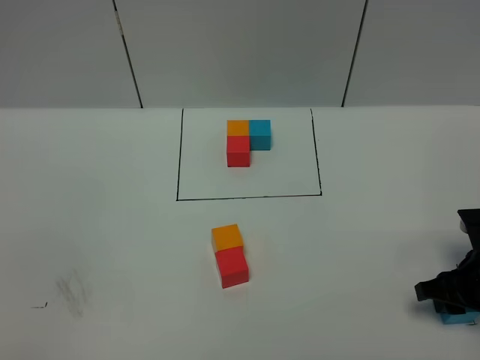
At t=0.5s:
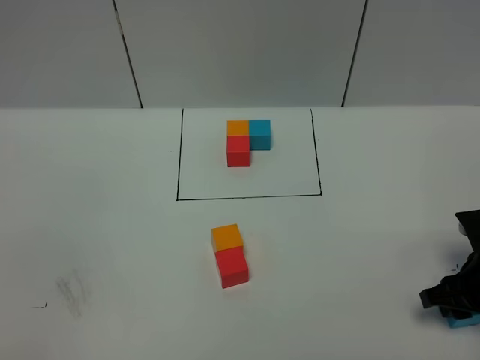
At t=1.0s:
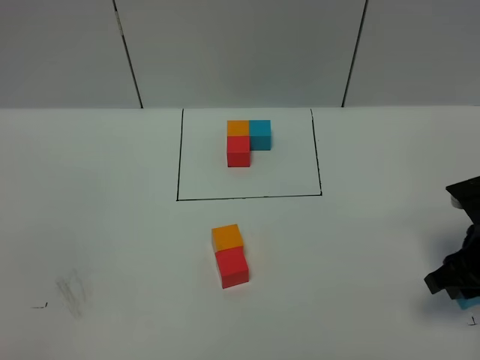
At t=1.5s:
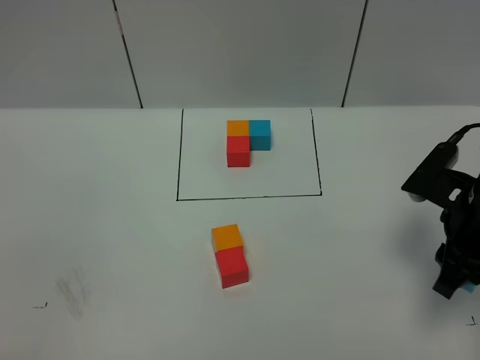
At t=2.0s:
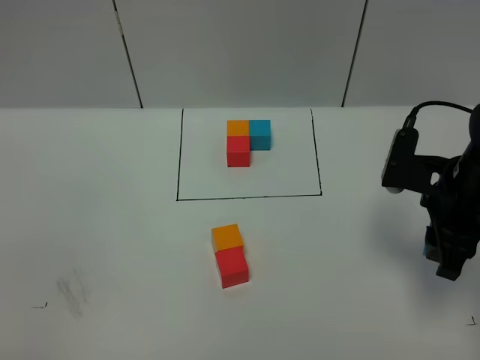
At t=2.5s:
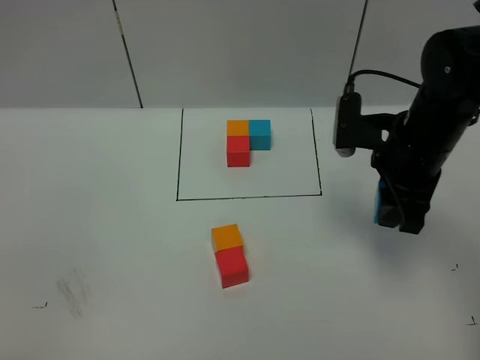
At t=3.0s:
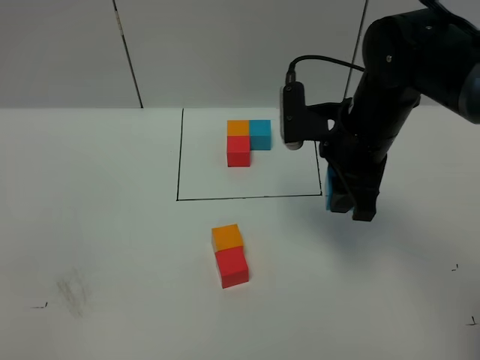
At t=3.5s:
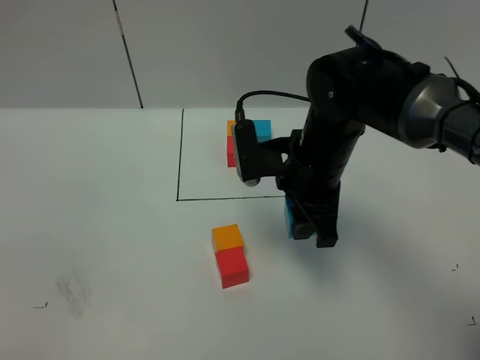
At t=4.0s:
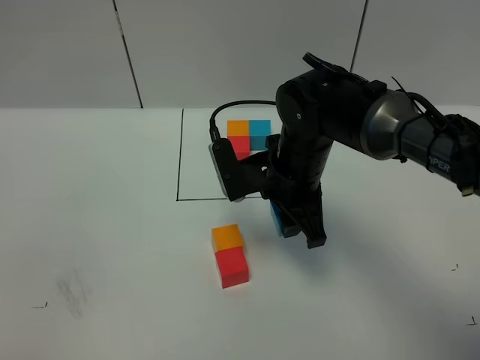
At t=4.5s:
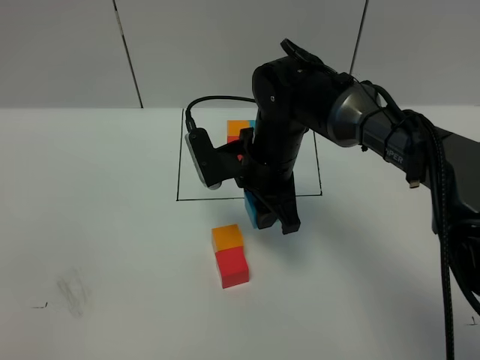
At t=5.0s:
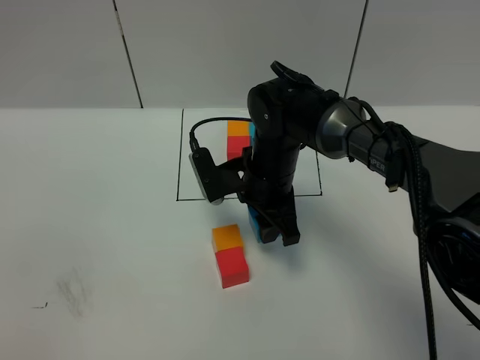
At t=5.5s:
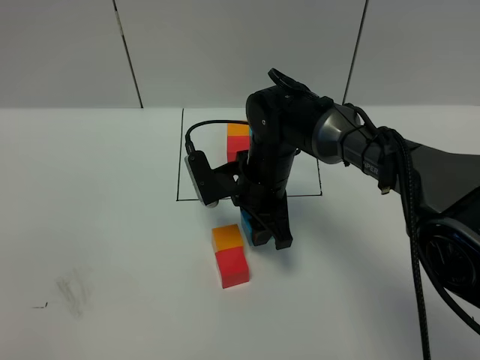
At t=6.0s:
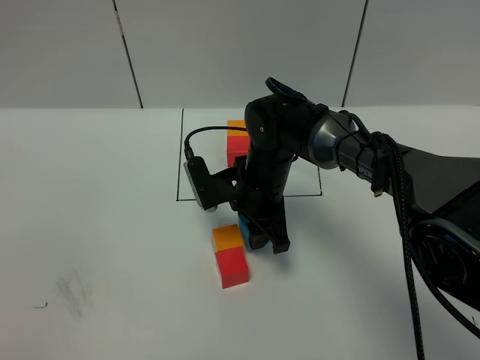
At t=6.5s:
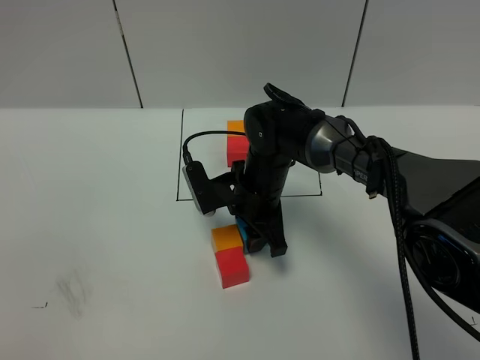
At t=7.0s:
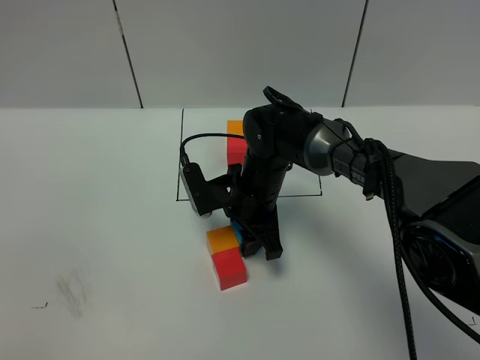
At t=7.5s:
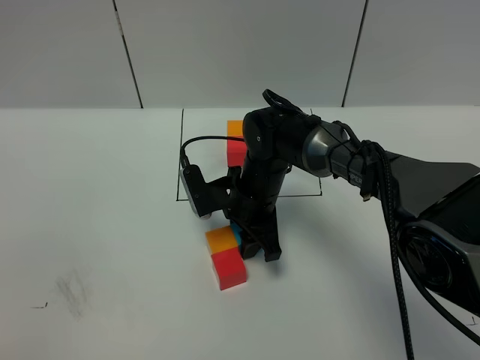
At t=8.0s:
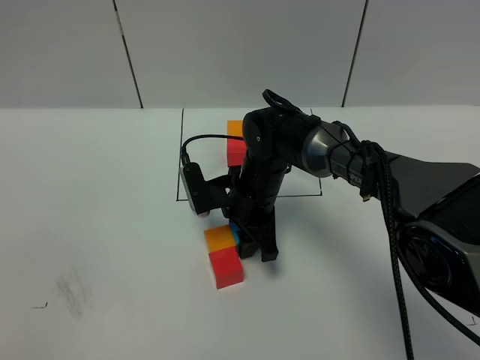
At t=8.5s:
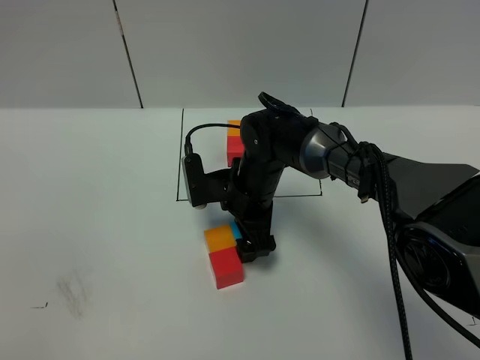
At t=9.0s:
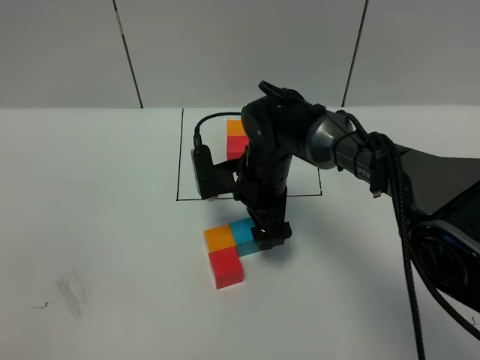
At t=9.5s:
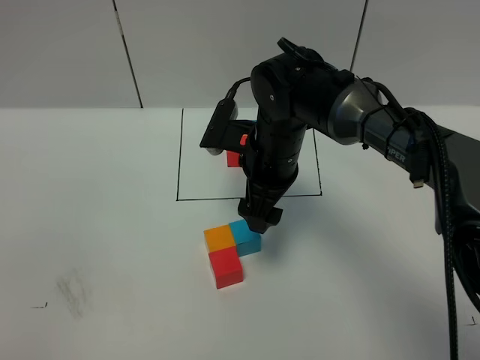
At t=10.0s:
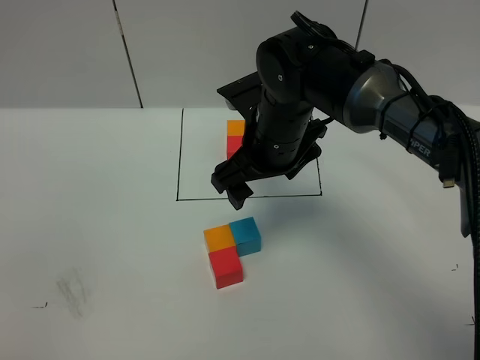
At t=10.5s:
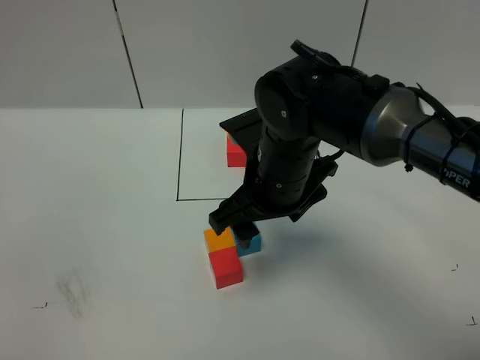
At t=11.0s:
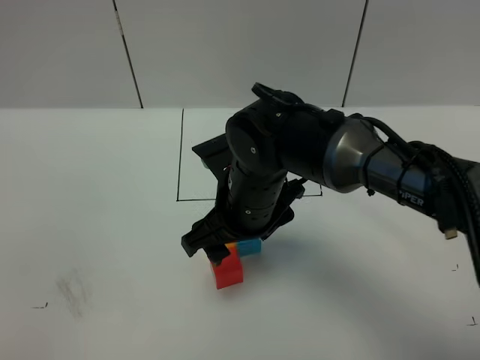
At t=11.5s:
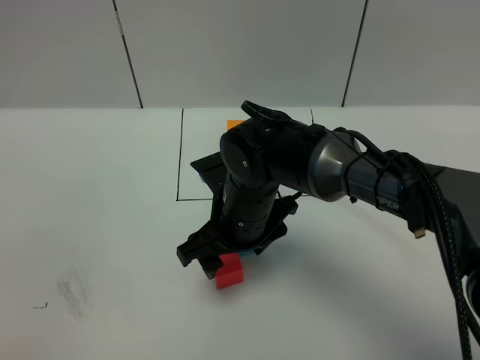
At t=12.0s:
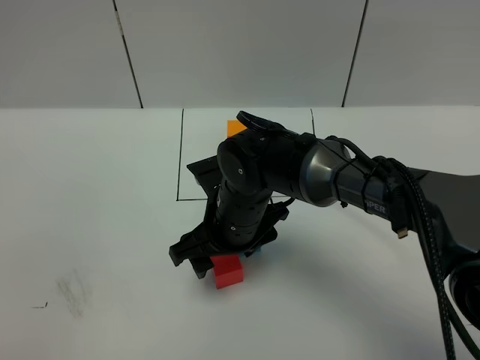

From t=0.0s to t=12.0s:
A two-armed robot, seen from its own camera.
Task of the whole recording: According to the building block template in front, assemble the scattered blocks together.
Step, from t=0.0s to t=8.5s: Put the blue cube on the right of the orange cube.
From t=0.0s to t=2.0s: The right gripper heads upward and to the left, covering approximately 15 cm.
From t=2.0s to t=4.0s: The right gripper goes about 20 cm to the left.
From t=4.0s to t=6.0s: The right gripper shifts roughly 5 cm downward.
From t=6.0s to t=8.0s: The grippers move only a little.
From t=8.0s to t=10.0s: The right gripper moves upward, some 10 cm, and opens its fingers.
From t=10.0s to t=12.0s: The right gripper heads downward and backward, covering roughly 10 cm.

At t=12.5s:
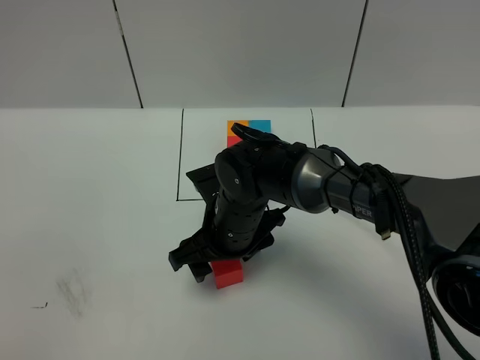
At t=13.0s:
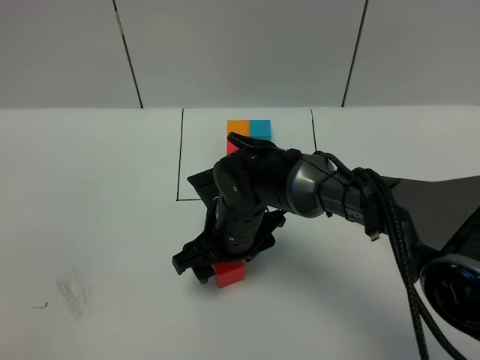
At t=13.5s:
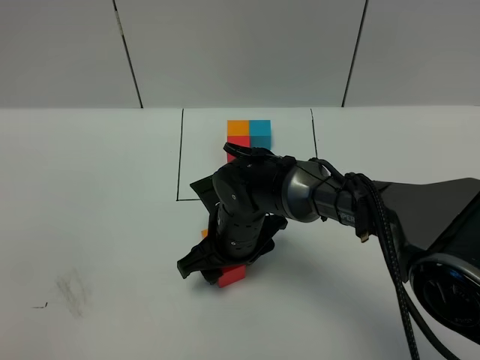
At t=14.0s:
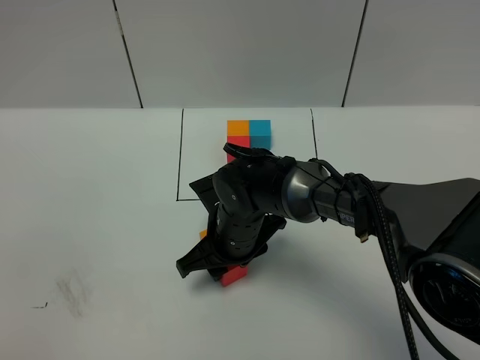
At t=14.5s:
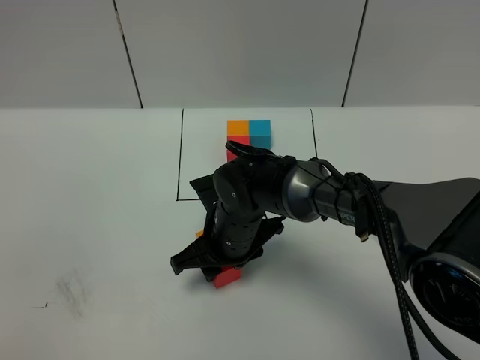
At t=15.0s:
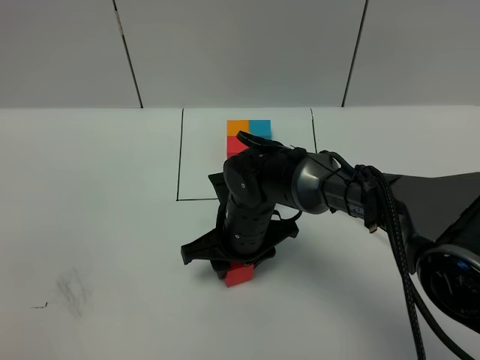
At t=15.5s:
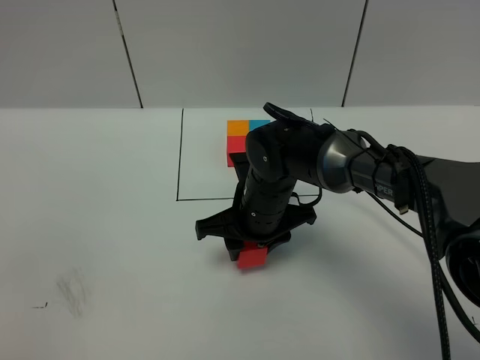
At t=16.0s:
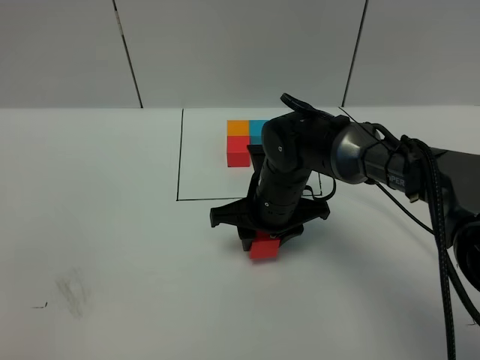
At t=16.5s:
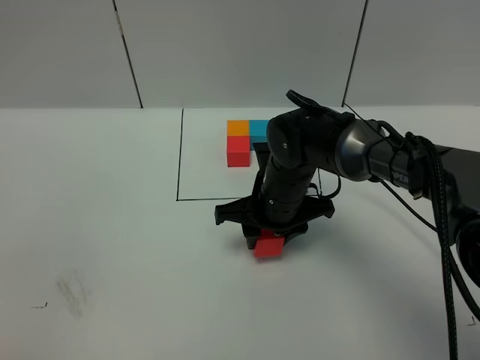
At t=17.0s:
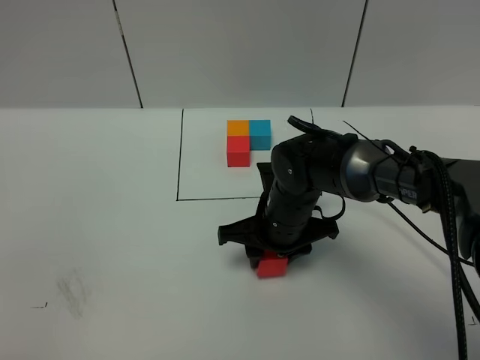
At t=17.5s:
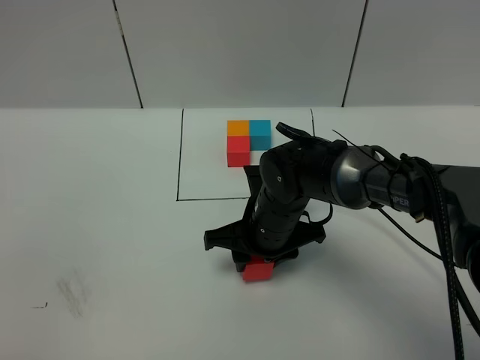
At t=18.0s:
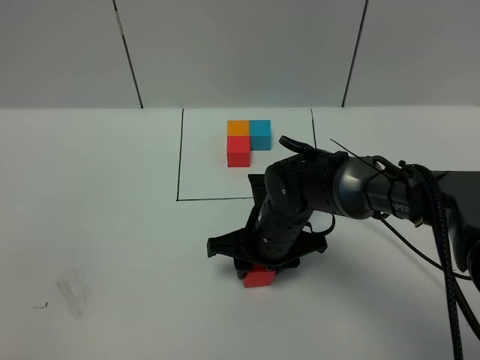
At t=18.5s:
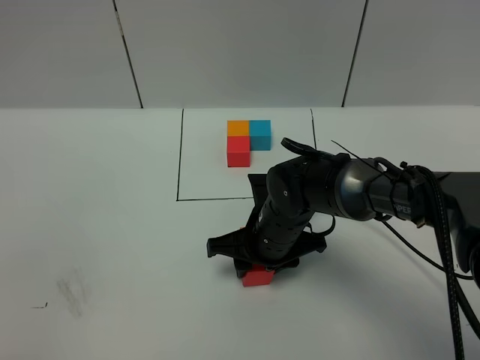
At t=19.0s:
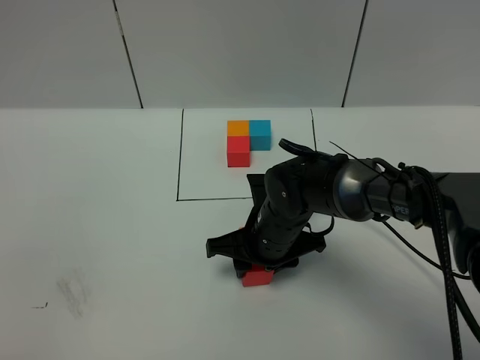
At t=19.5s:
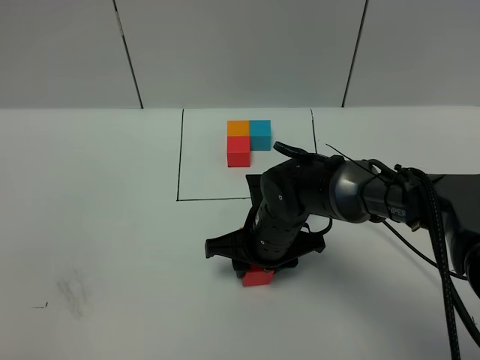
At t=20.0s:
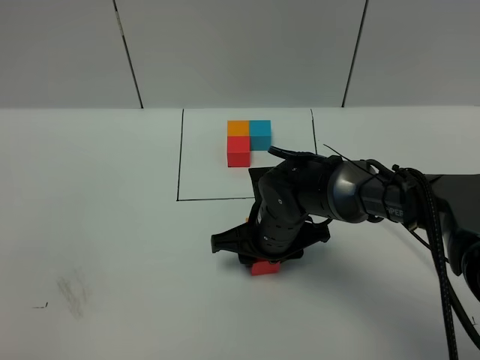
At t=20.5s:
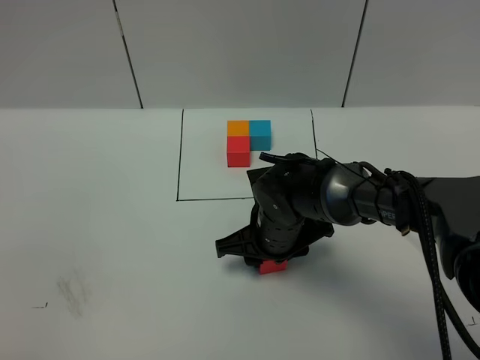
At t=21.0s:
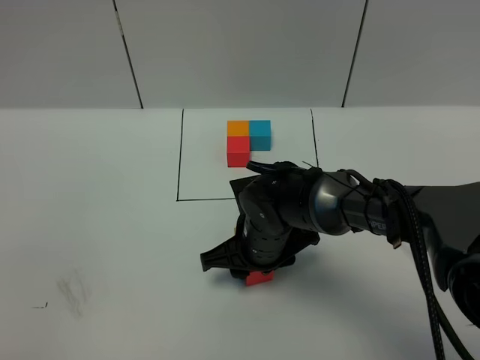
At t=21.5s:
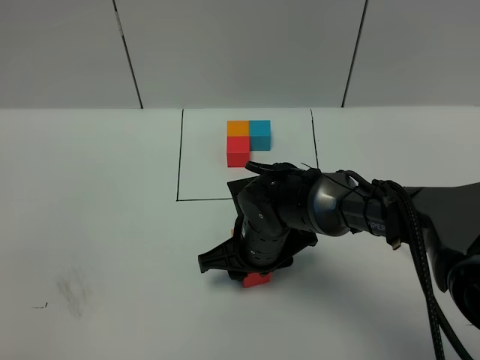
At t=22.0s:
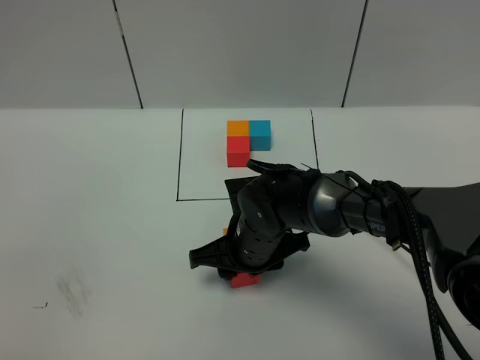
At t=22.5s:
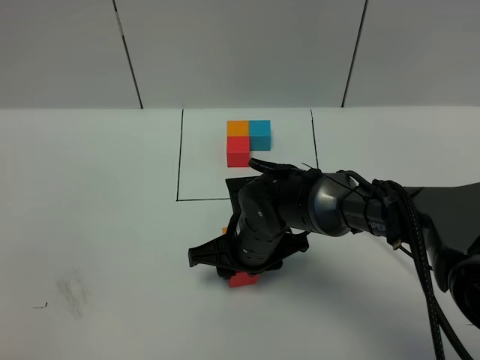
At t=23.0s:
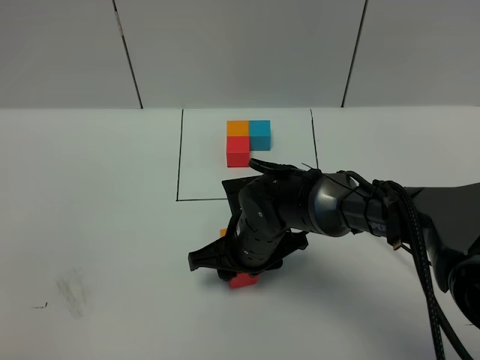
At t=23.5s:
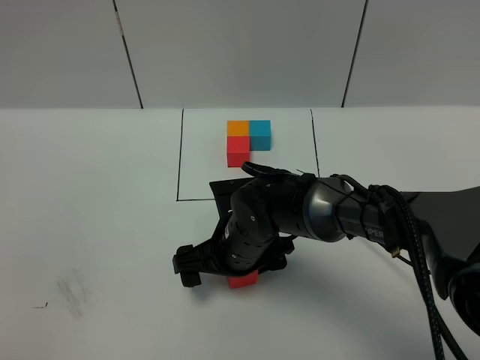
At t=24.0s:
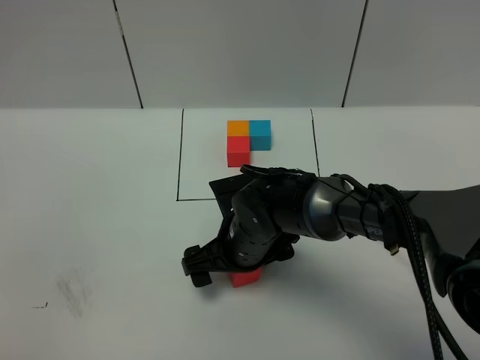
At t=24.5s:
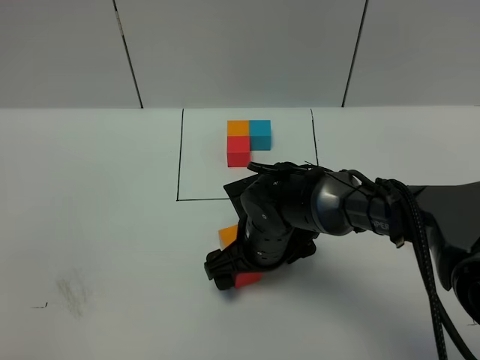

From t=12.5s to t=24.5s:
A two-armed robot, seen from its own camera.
Task of the whole recording: According to the building block template in front, assemble the scattered blocks together.
From t=12.5s to t=14.5s: The right gripper closes up.
From t=14.5s to t=16.5s: The right gripper is displaced to the right by some 5 cm.
From t=16.5s to t=20.5s: The grippers move only a little.
From t=20.5s to t=22.5s: There are only small adjustments of the grippers.
From t=22.5s to t=24.5s: The right gripper opens up.

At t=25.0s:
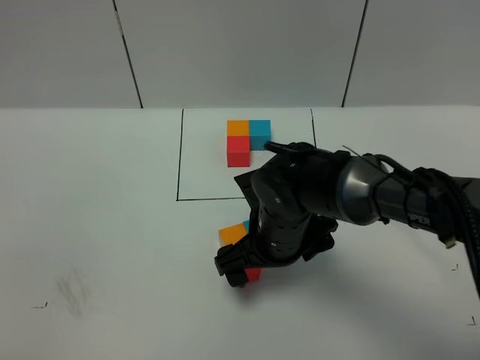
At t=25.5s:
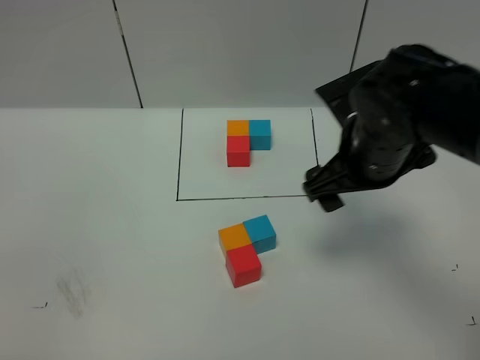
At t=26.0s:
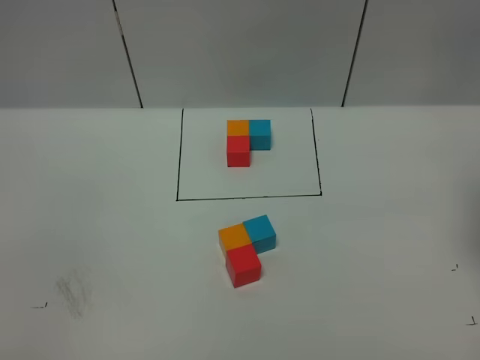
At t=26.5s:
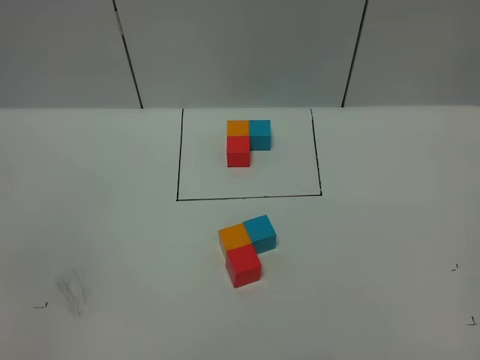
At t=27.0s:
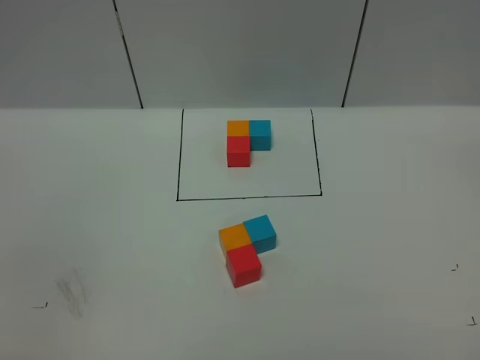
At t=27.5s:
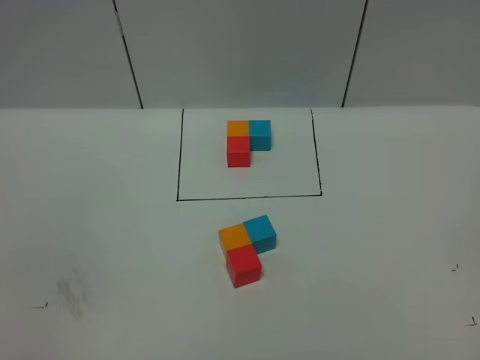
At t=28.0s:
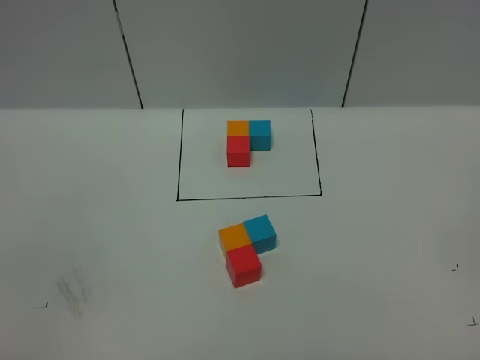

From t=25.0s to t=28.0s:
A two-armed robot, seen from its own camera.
Task of the whole recording: According to the building block template in front, assemble the scattered blocks together.
From t=25.0s to t=26.5s: The right gripper goes about 50 cm upward, to the right and backward.
